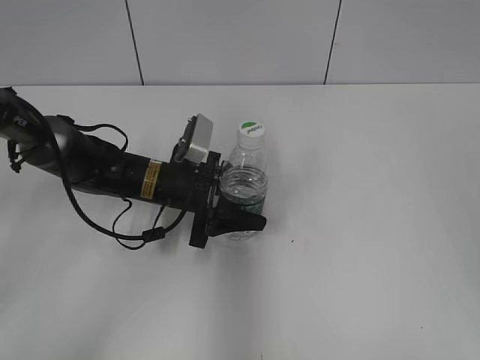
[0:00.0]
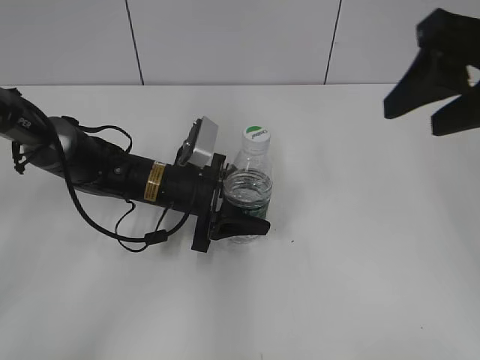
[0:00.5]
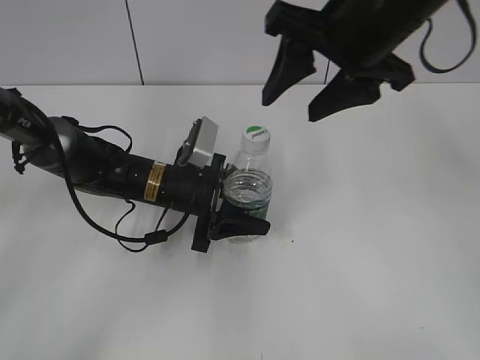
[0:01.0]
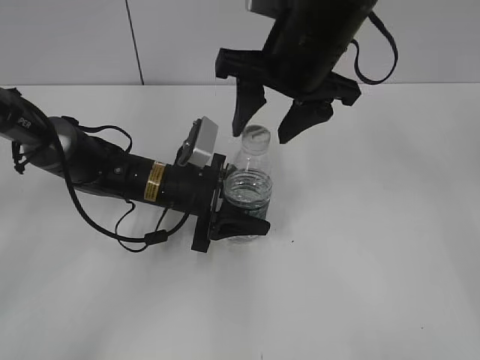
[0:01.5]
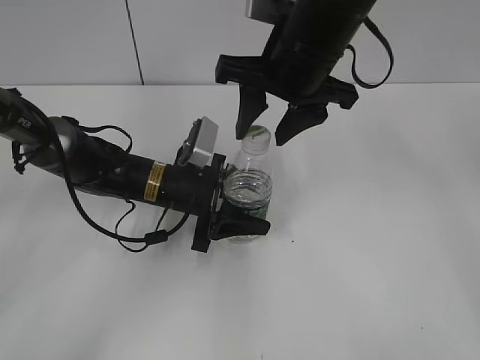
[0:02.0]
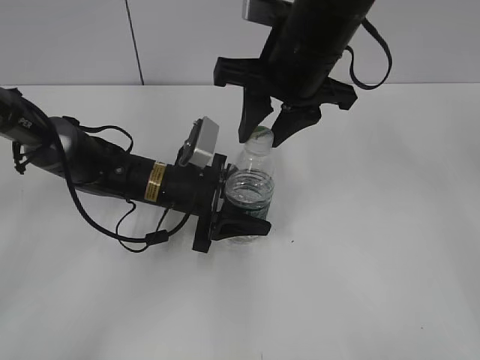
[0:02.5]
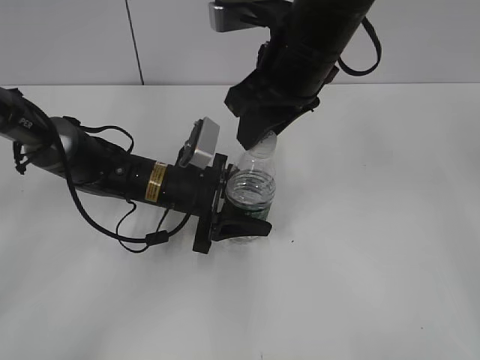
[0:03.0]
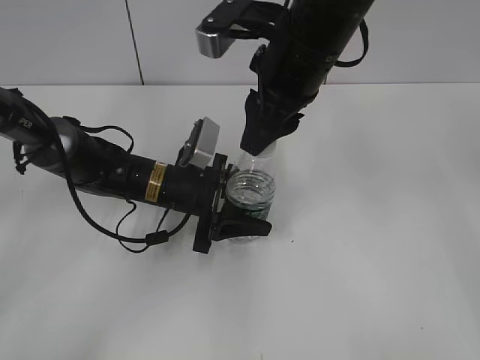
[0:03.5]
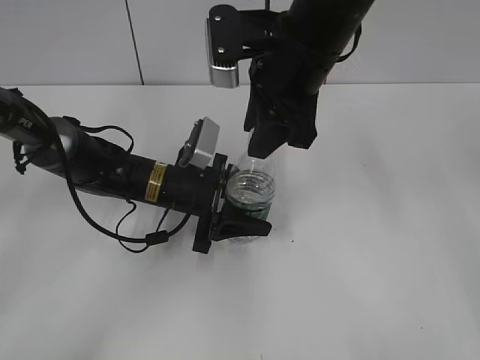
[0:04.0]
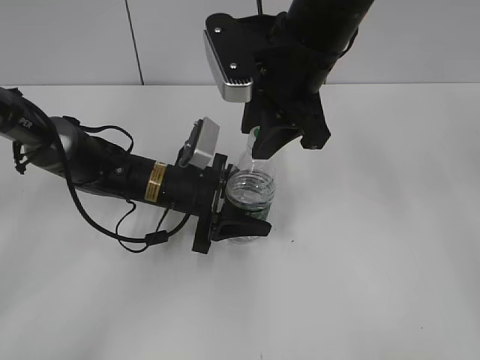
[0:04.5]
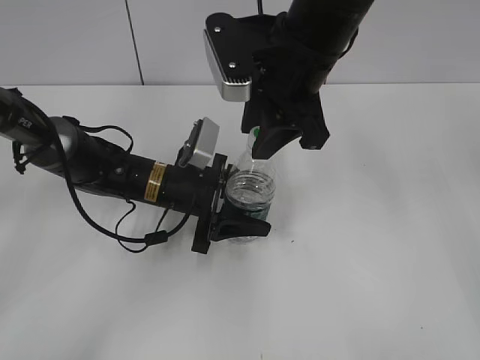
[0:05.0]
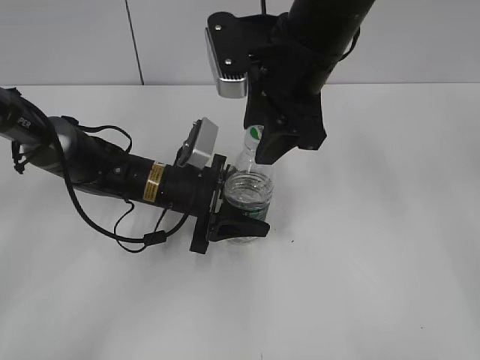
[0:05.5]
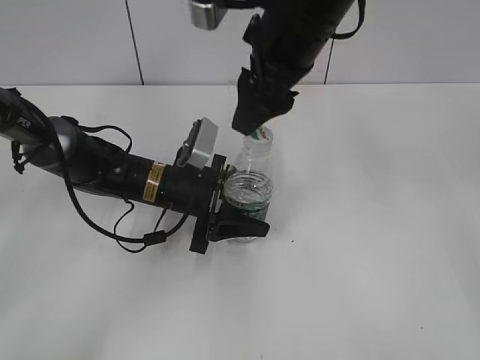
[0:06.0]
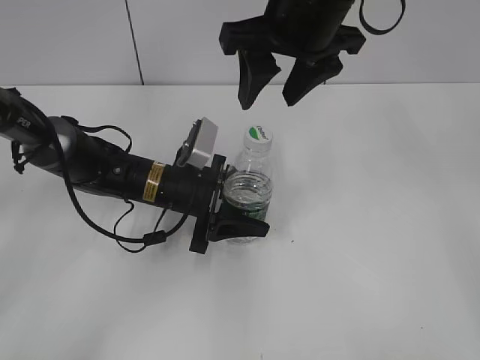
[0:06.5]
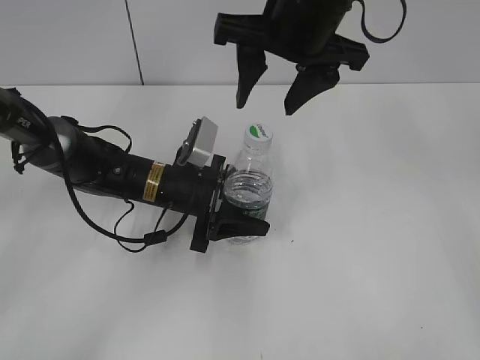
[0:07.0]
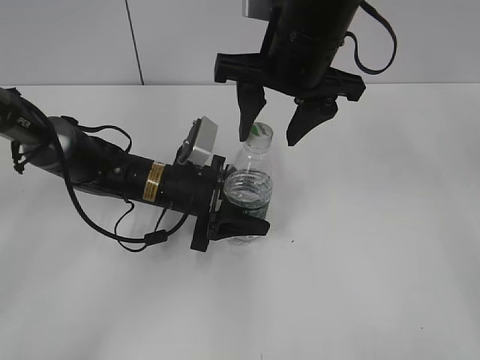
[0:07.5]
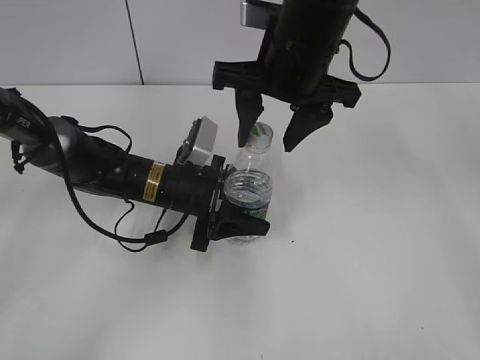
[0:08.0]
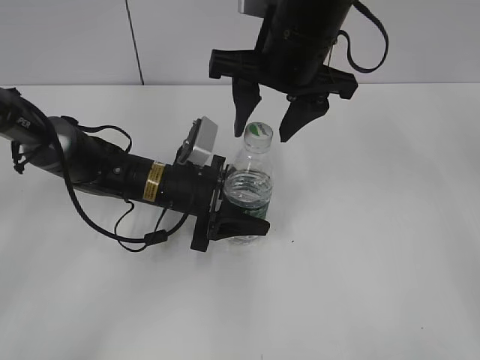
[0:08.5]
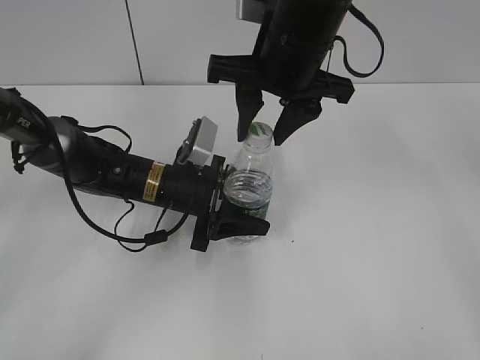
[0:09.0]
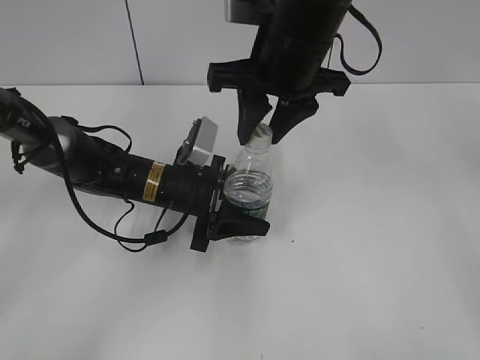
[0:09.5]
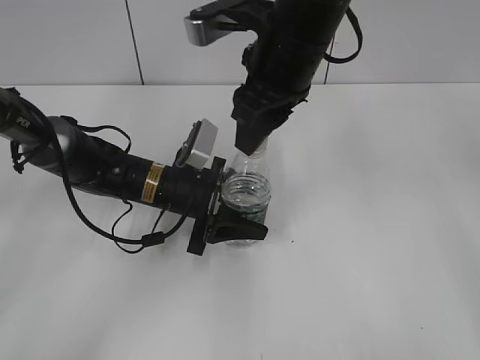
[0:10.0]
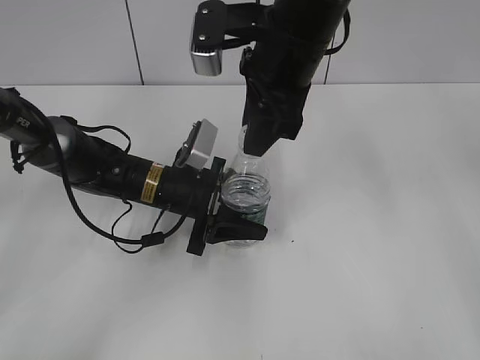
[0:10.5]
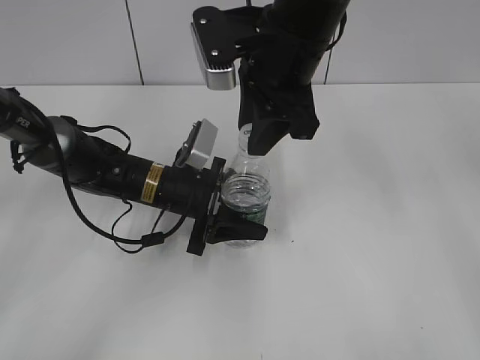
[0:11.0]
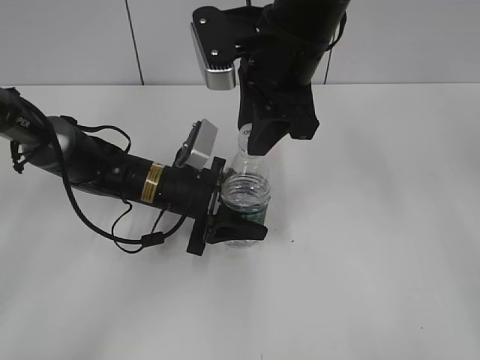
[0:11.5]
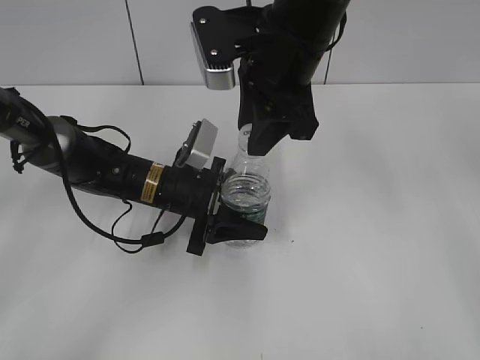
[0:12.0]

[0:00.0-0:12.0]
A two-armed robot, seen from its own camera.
0:00.0 to 0:02.0: The right gripper shifts roughly 30 cm to the left and forward.
0:02.0 to 0:04.0: The right gripper closes up.
0:04.0 to 0:06.0: The right gripper opens.
0:08.0 to 0:10.0: The right gripper closes up.

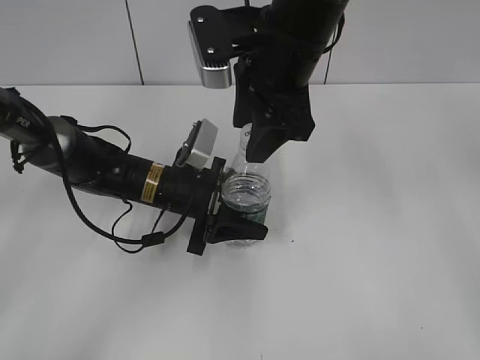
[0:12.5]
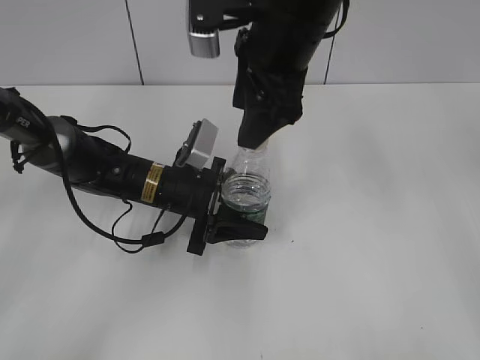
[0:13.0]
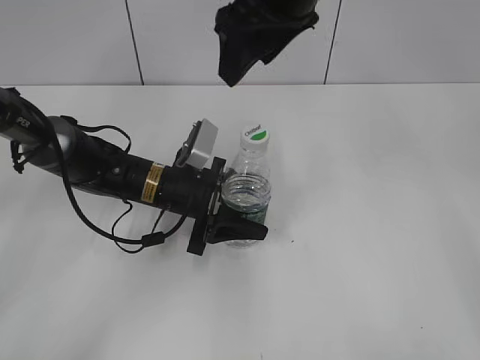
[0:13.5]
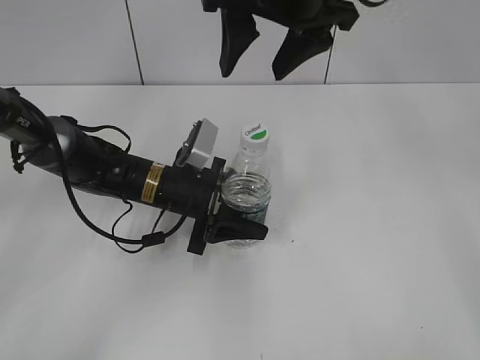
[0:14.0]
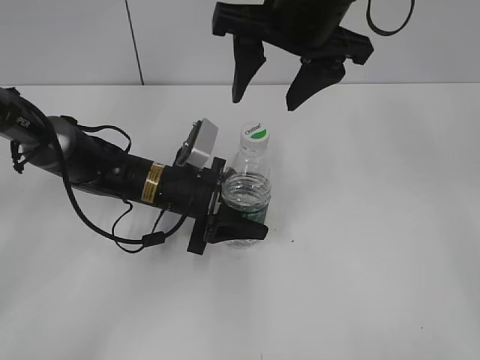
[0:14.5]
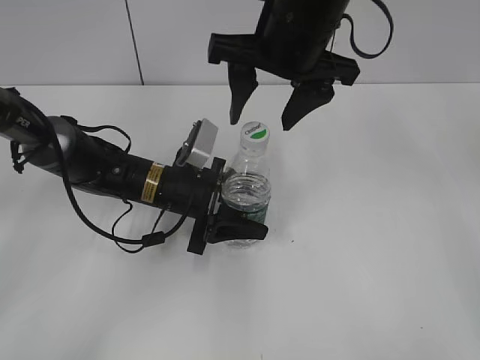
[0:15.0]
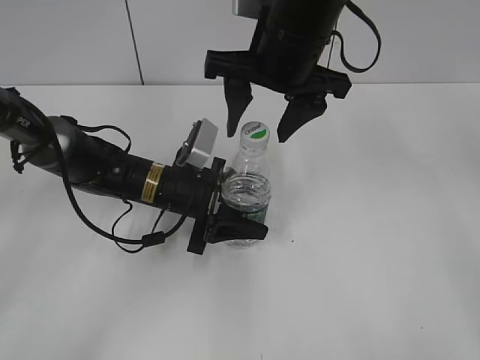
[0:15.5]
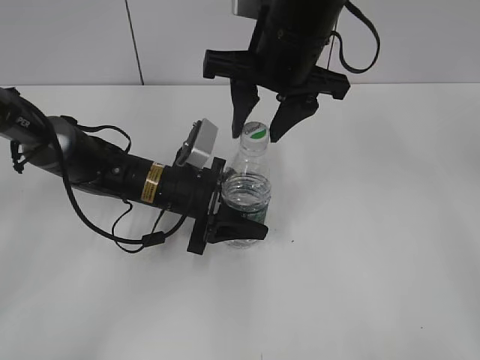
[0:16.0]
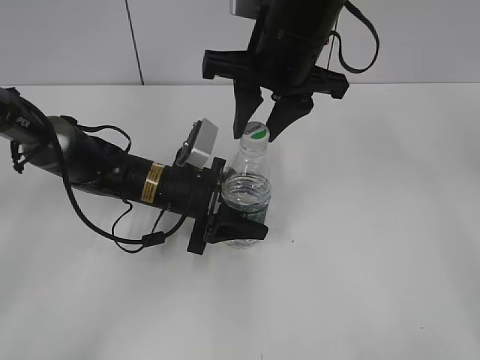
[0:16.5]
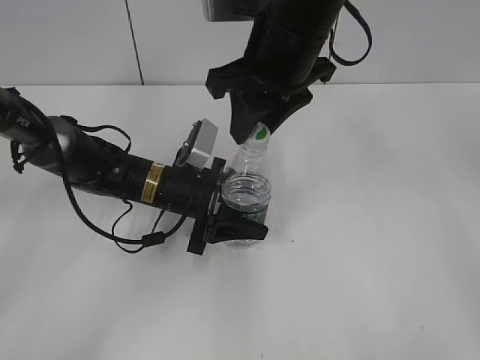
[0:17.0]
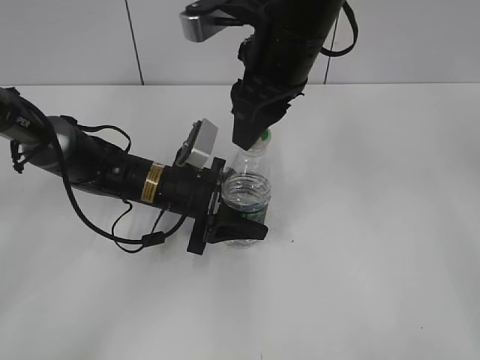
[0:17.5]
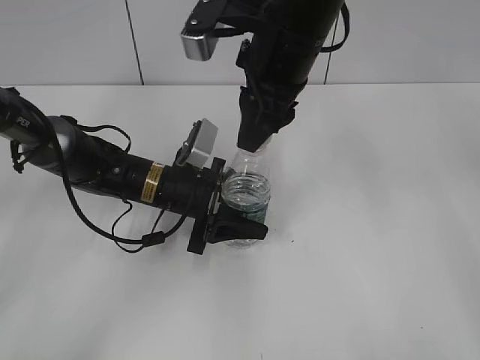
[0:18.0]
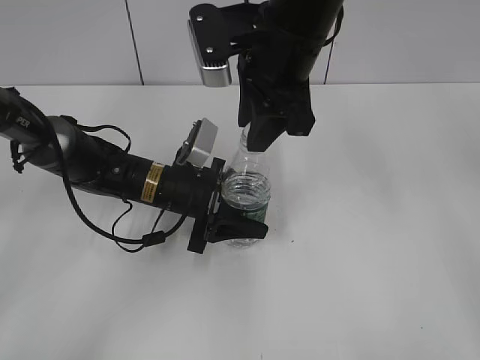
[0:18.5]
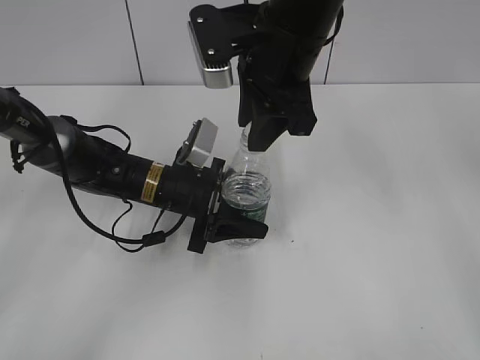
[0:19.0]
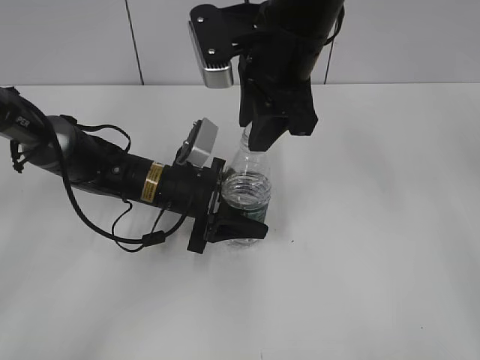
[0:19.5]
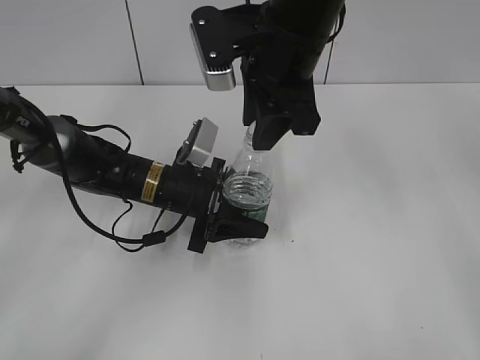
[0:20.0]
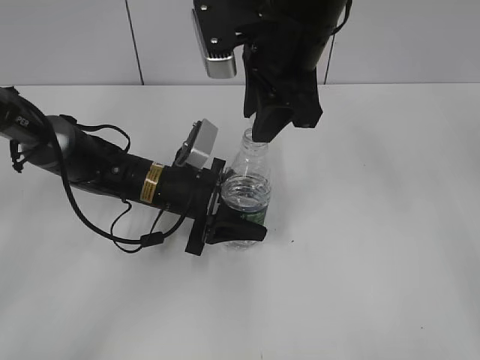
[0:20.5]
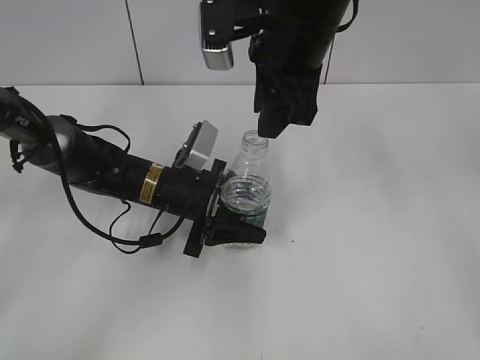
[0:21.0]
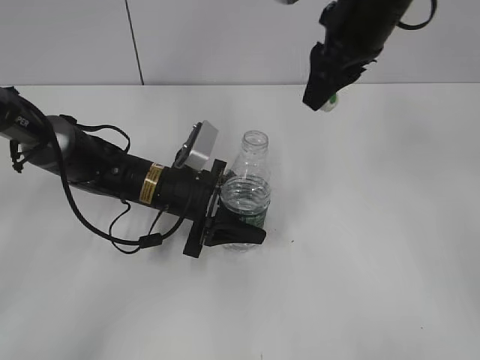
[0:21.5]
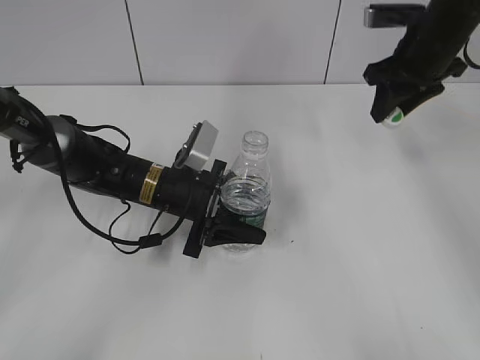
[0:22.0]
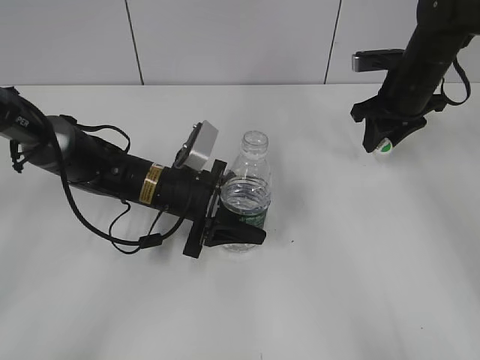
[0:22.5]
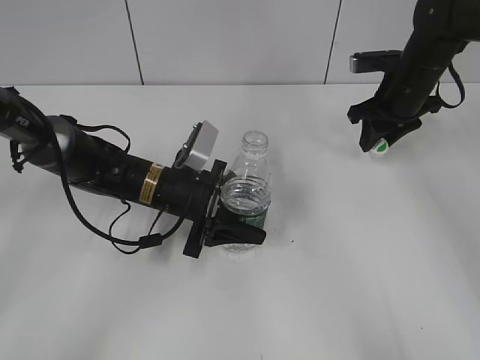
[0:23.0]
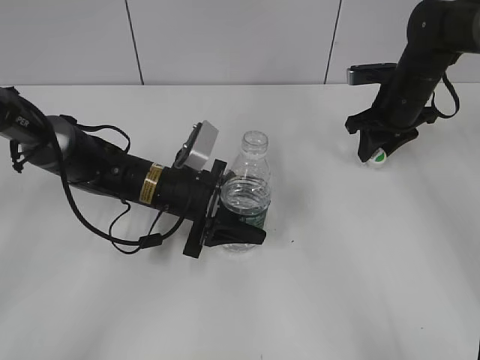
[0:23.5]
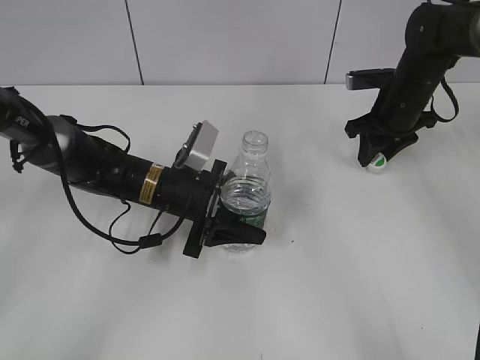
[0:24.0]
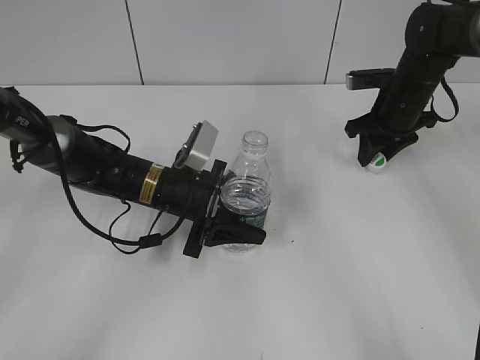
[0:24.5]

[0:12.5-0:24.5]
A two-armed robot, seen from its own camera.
Step, 0:12.5 to 0:21.0: Unscrew the bottle cap with the right gripper while holding the bottle with the left gripper.
0:14.5 to 0:16.5: The right gripper closes.
0:18.5 to 0:20.5: The two grippers keep their place.
0:20.5 to 0:22.5: The right gripper travels to the right, forward and downward by approximately 25 cm.
0:22.5 to 0:24.5: The grippers stay close to where they were, moving slightly.

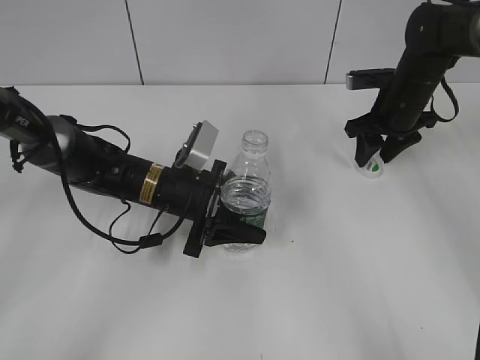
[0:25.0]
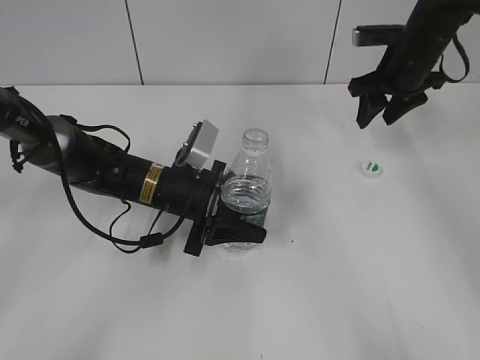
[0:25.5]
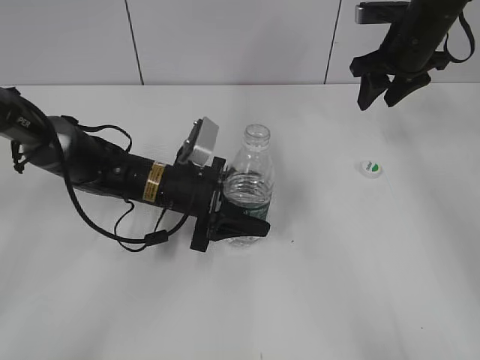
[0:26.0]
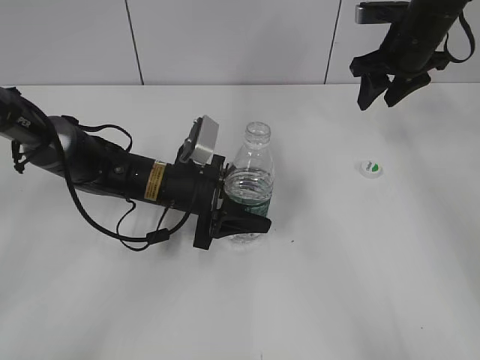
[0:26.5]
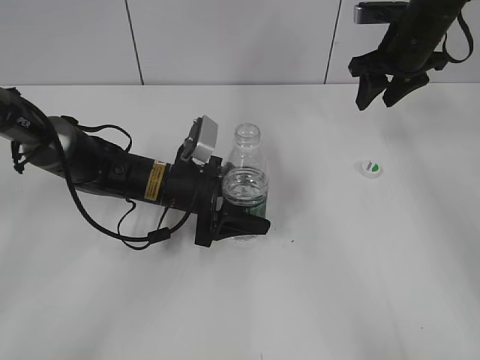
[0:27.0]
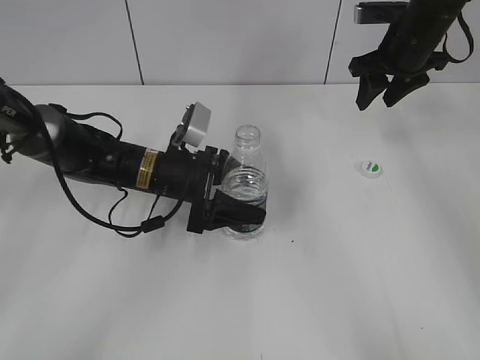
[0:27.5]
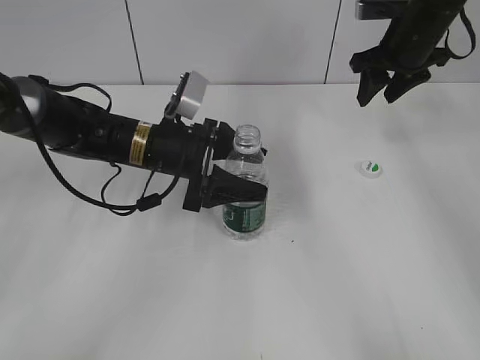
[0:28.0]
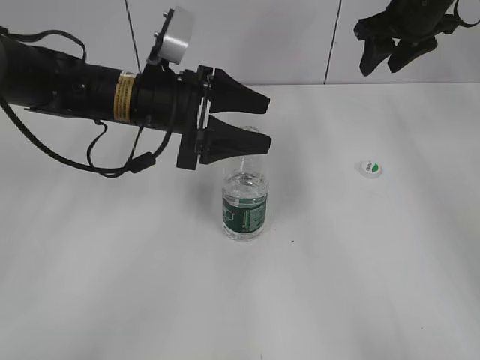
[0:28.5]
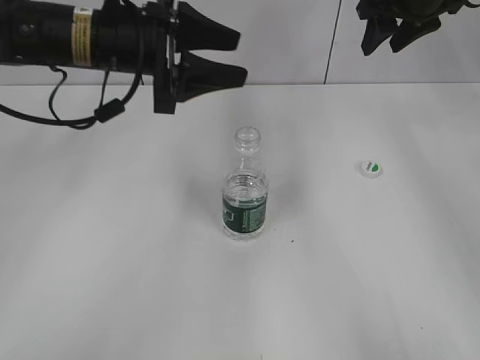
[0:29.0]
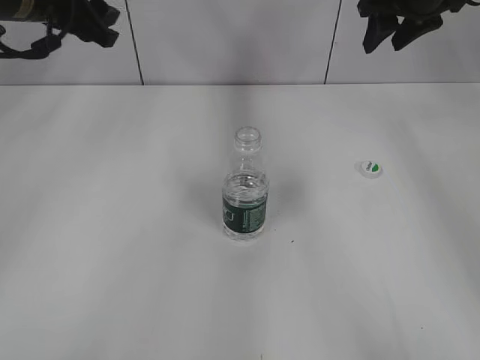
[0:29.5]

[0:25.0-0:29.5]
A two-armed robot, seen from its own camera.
Step, 0:25.5 to 0:28.0: Place the bottle on the table with the left gripper.
0:25.0 to 0:27.0: The right gripper travels upward by roughly 10 cm.
0:27.0 to 0:29.5: The left gripper shifts roughly 25 cm upward and to the left. The right gripper moves upward, roughly 5 cm.
